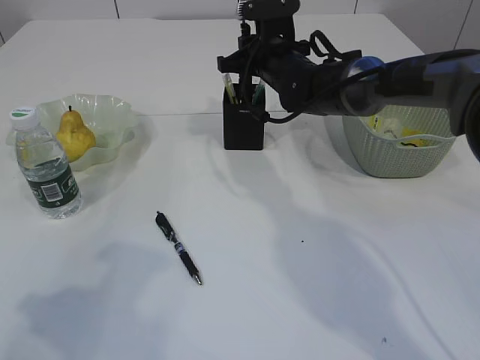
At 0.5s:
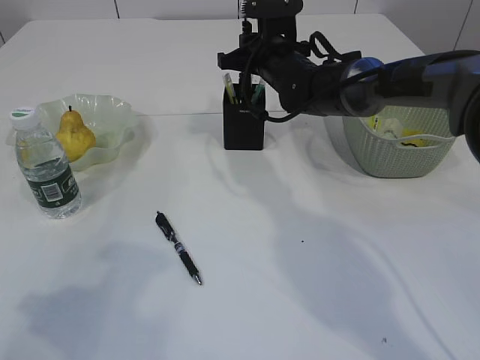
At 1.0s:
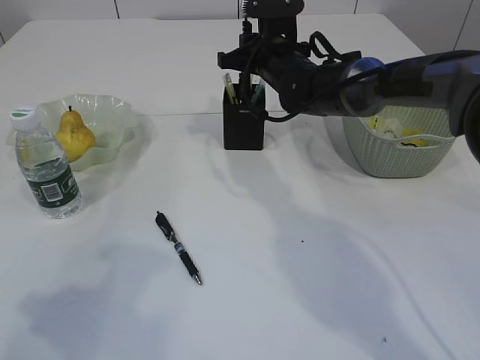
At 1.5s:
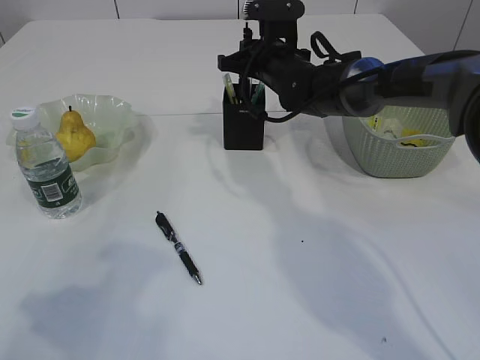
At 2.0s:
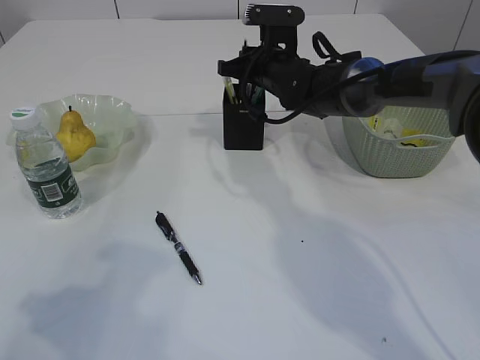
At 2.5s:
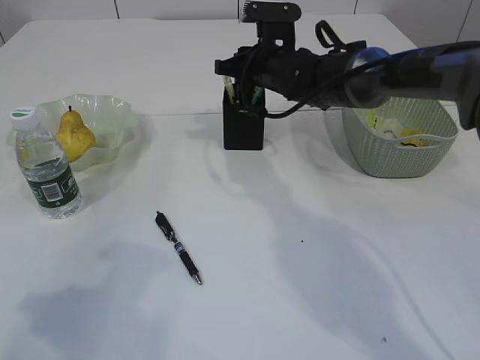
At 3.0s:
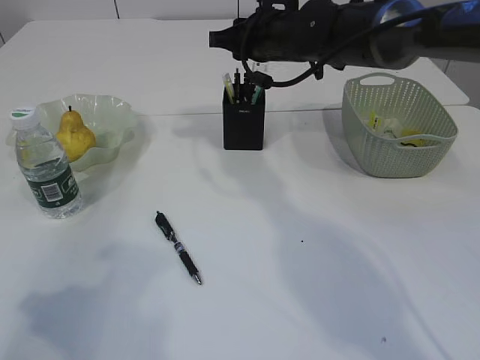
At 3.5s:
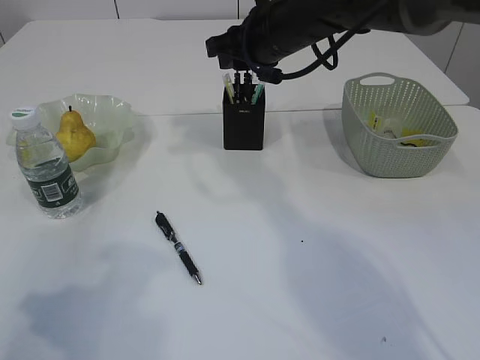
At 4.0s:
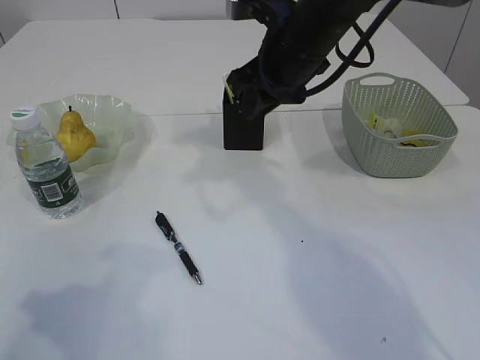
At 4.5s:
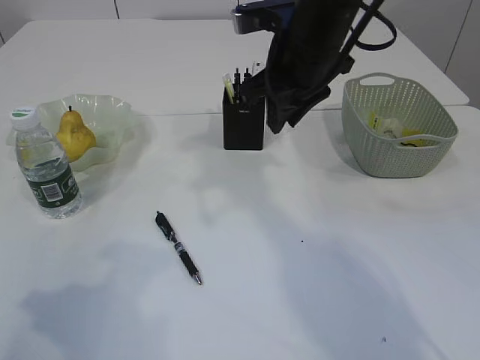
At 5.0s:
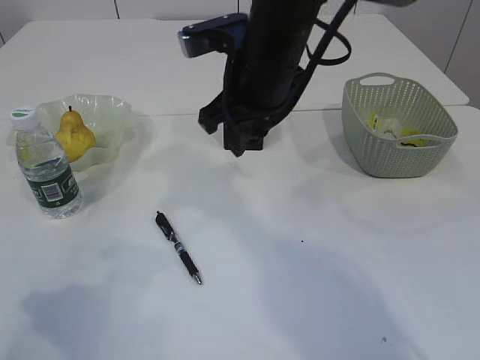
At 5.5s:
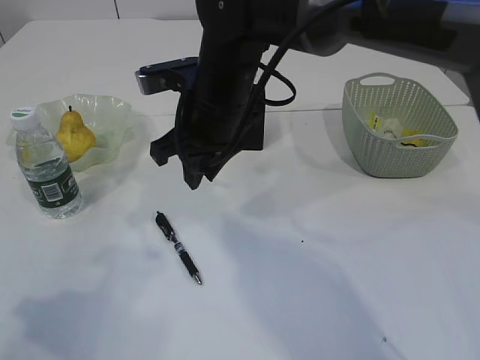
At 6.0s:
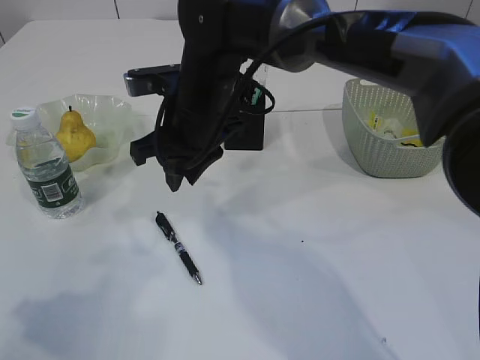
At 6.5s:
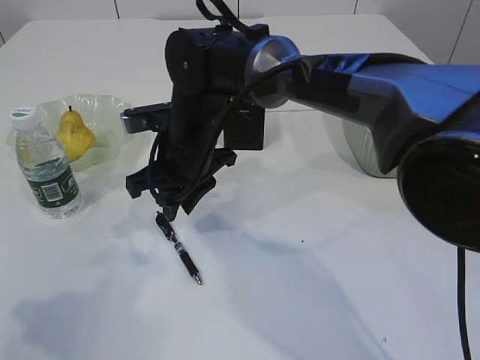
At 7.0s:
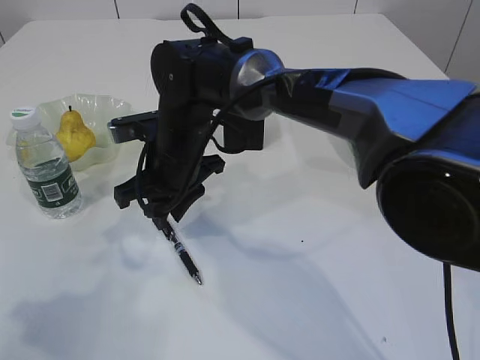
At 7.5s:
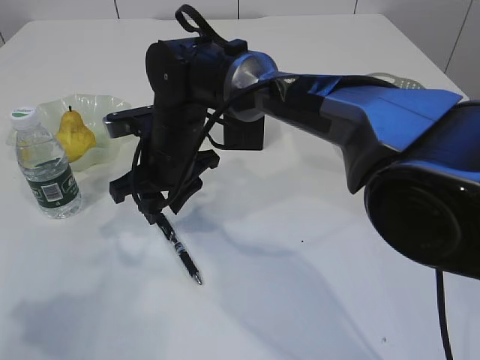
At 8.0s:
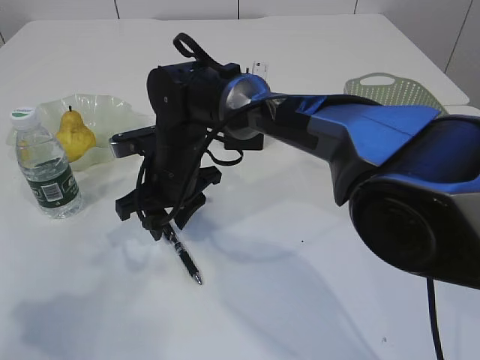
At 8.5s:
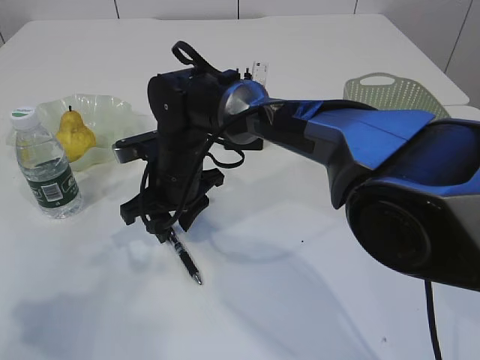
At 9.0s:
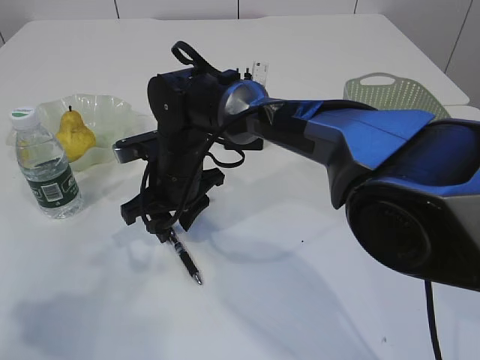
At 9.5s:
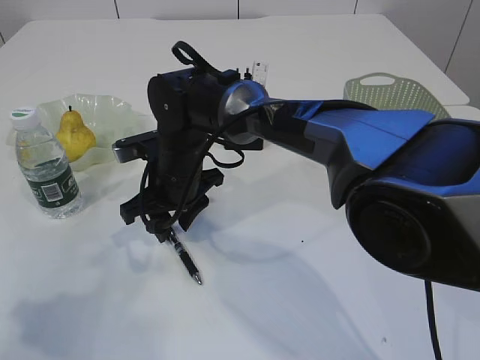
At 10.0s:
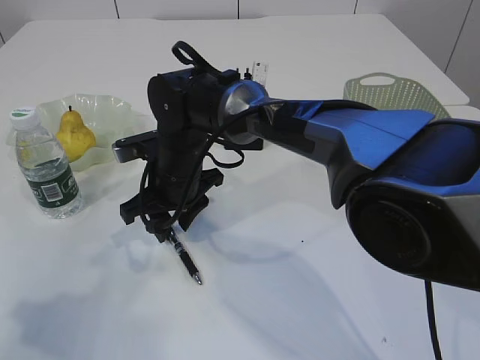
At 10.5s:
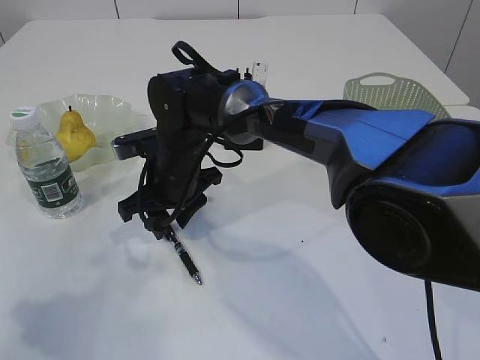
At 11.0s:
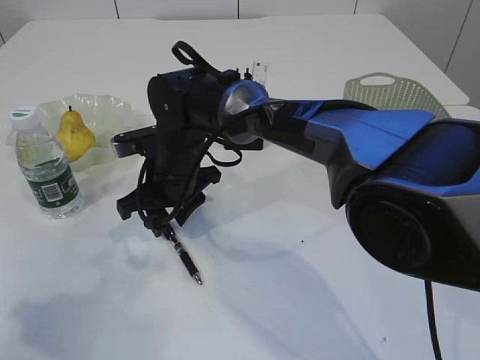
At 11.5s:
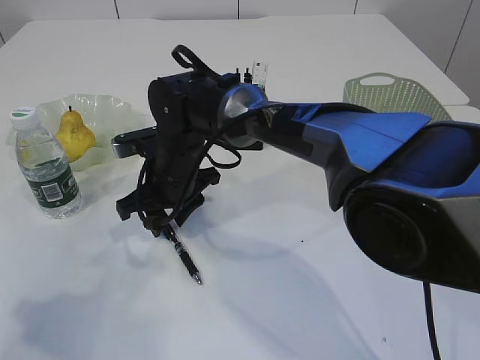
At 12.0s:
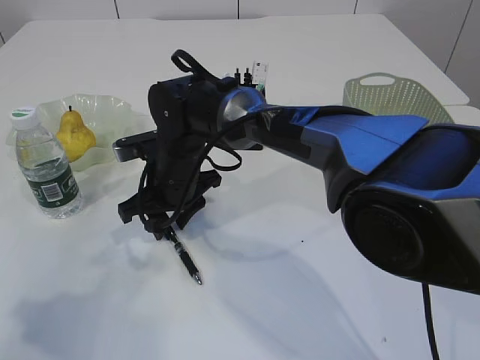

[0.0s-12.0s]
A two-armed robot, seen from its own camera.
Step, 0.0s to 2.0s: Place the pen into the pen holder.
0.0s to 2.0s: The grippers make only small movements.
2.0s to 4.0s: The right gripper shifts roughly 15 cm backward and upward.
4.0s to 6.0s: The right gripper travels to the left and downward by roughly 10 cm.
6.0s to 8.0s: The right gripper moves downward, roughly 10 cm.
8.0s to 10.0s: Neither gripper changes place.
10.0s to 12.0s: Both grippers stay about where they are.

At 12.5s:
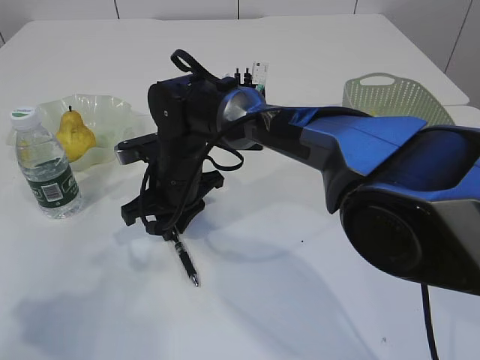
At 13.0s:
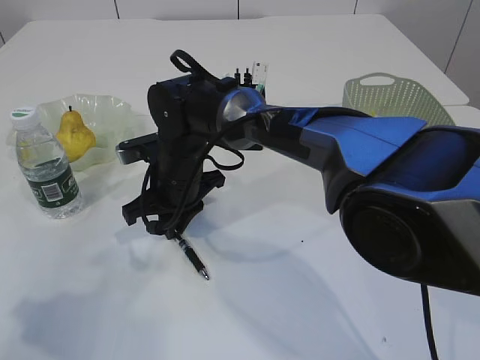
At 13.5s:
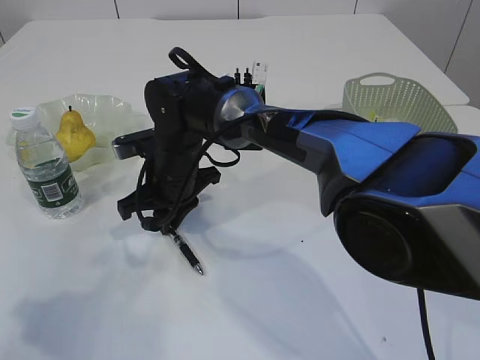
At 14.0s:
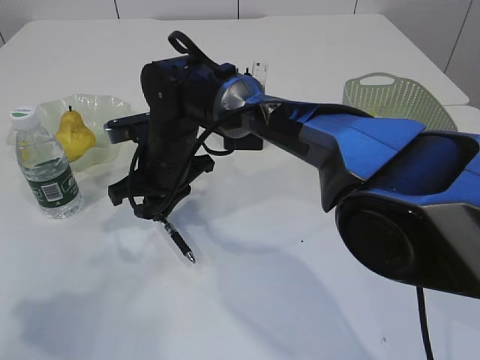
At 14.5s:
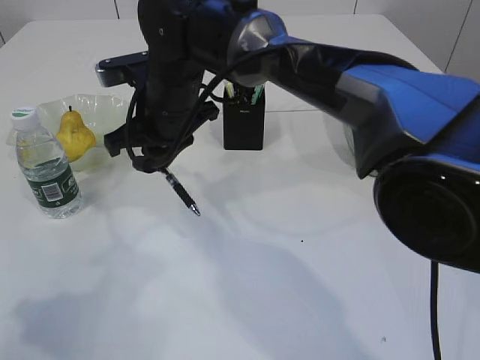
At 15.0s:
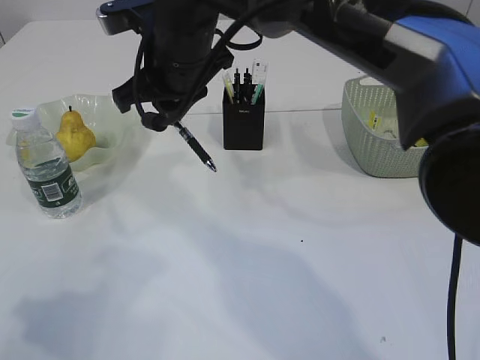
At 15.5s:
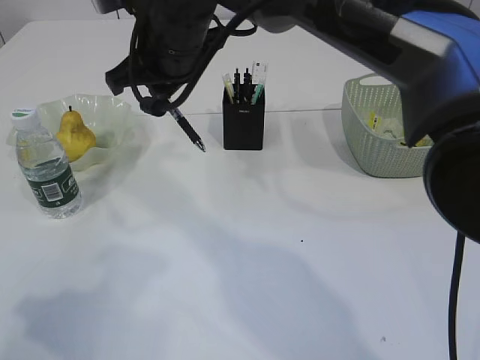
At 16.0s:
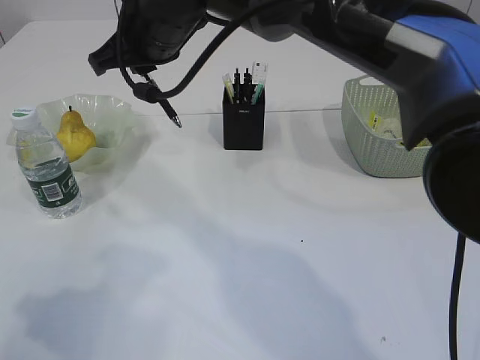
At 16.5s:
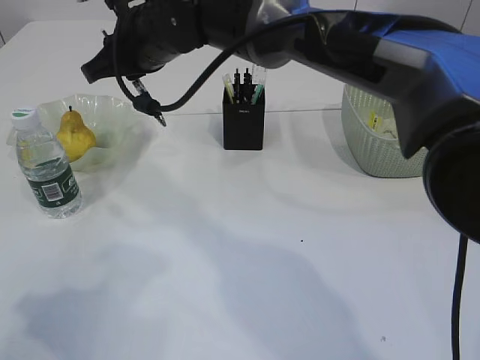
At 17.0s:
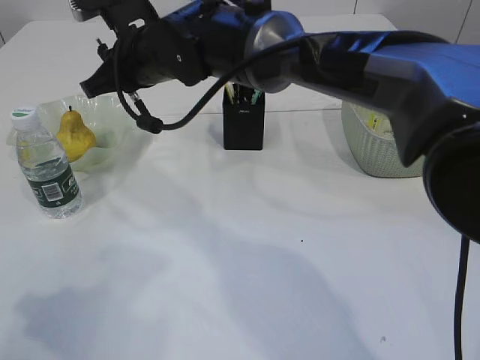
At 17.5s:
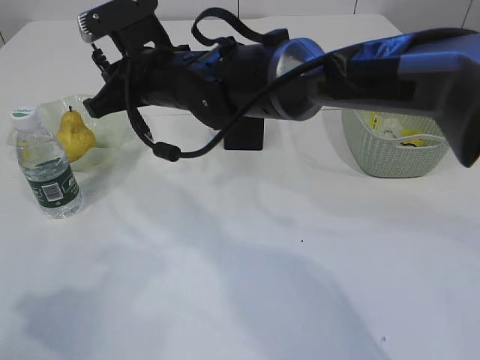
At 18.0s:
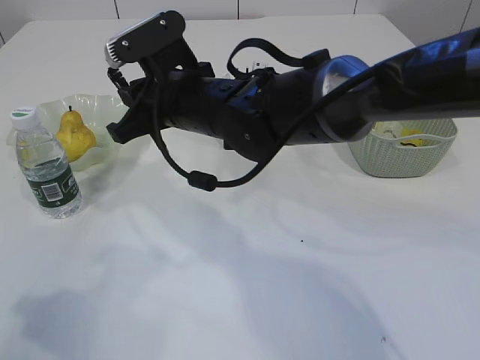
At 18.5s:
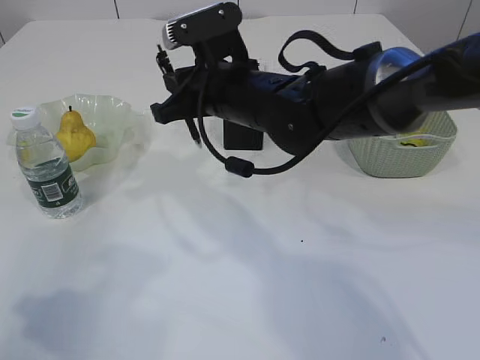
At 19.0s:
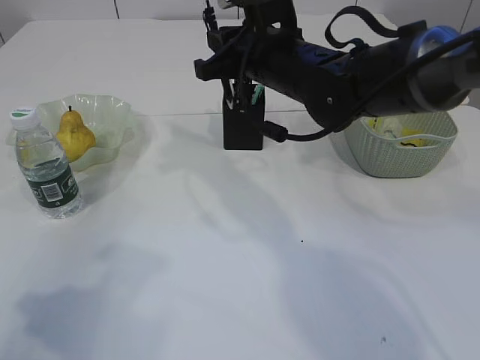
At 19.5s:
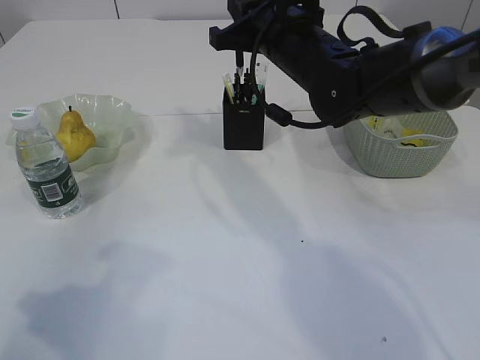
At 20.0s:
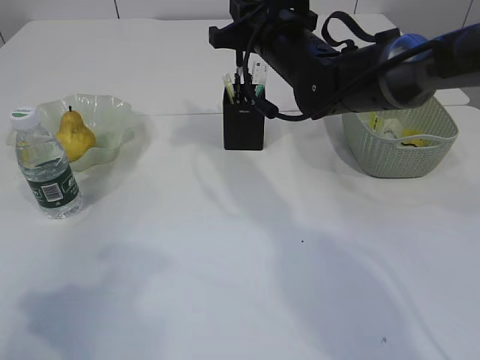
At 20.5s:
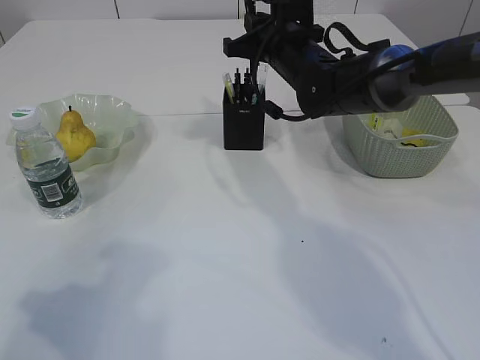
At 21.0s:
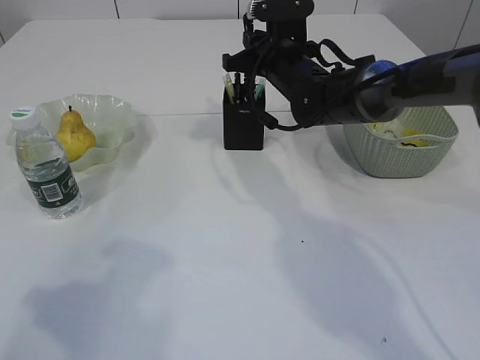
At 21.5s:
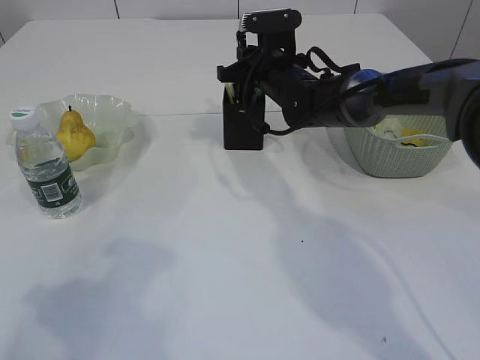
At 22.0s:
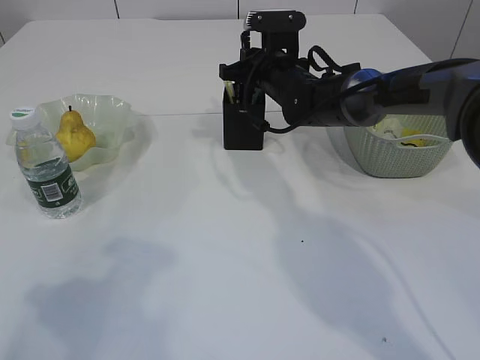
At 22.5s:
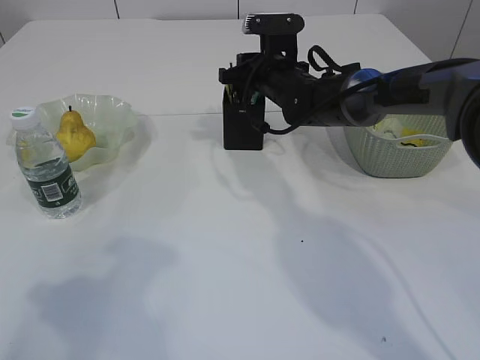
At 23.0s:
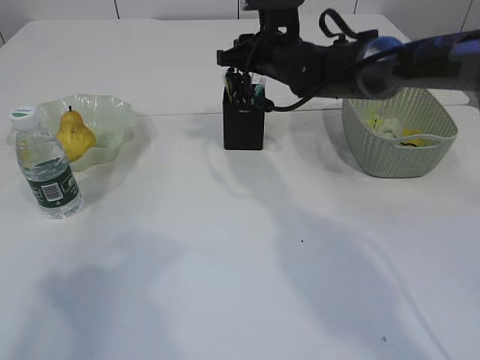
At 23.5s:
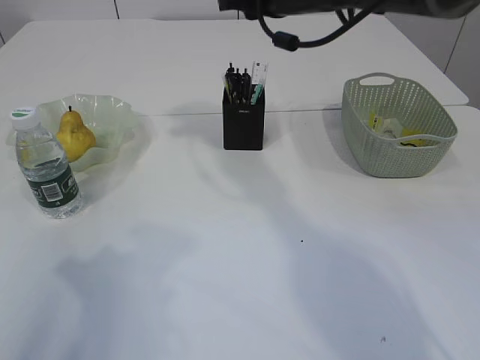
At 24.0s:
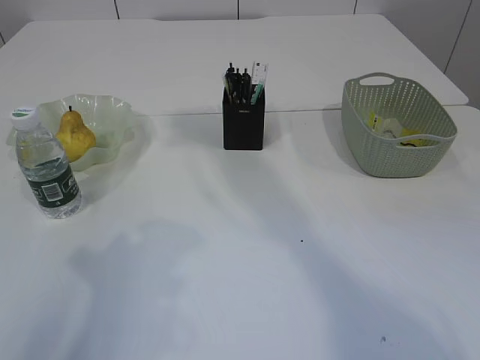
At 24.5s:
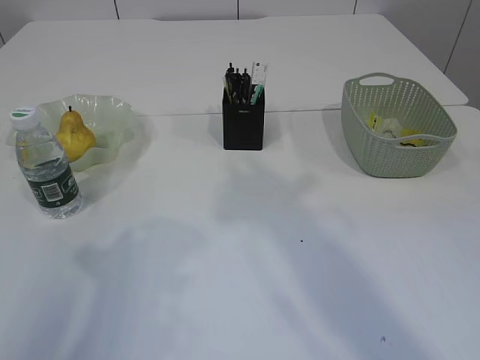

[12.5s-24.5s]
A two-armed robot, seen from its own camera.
Step, 14.0s to 22.5s: Place the pen into the pen holder.
12.5s to 14.5s: The right gripper goes roughly 10 cm upward.
14.5s to 16.5s: The right gripper is displaced upward by roughly 5 cm.
16.5s to 18.5s: The right gripper travels to the right and downward by roughly 10 cm.
18.5s to 20.5s: The right gripper goes roughly 15 cm forward and to the right.
20.5s to 22.5s: The right gripper shifts by roughly 5 cm, and opens.
22.5s to 24.5s: The right gripper goes about 35 cm backward and upward.

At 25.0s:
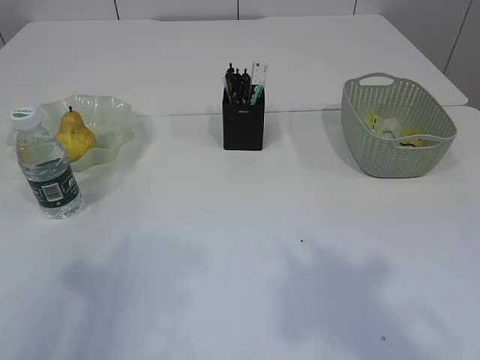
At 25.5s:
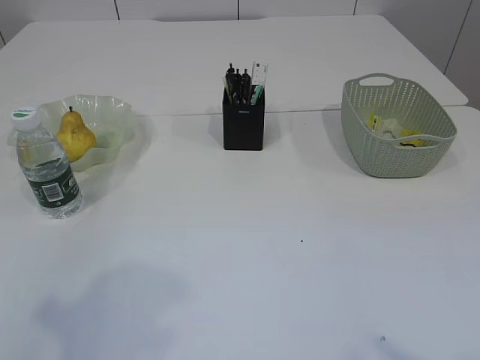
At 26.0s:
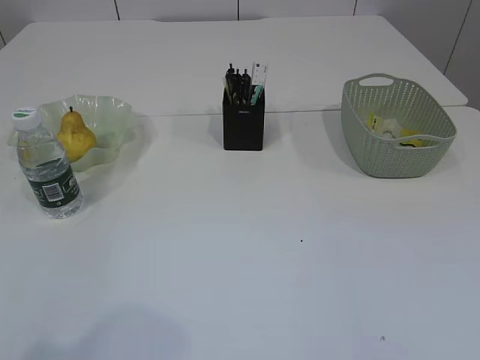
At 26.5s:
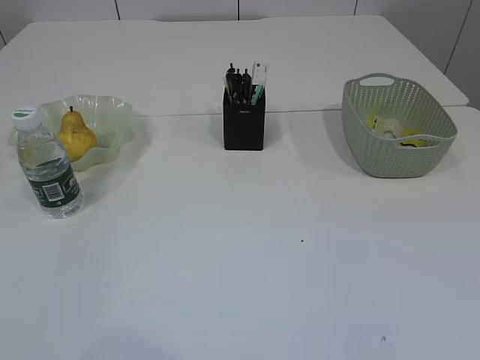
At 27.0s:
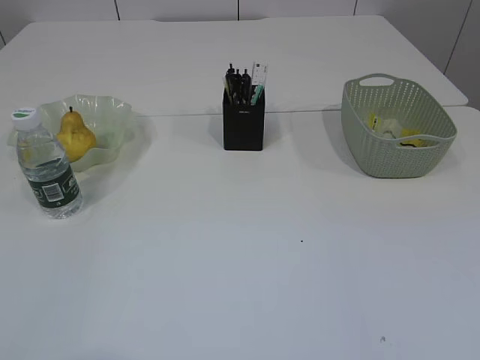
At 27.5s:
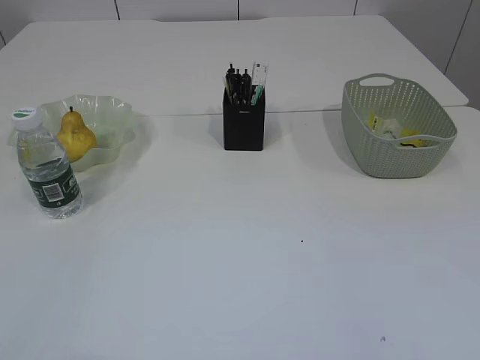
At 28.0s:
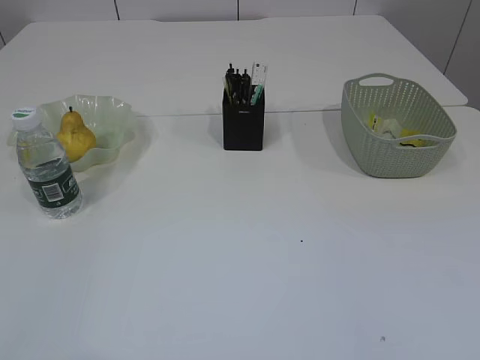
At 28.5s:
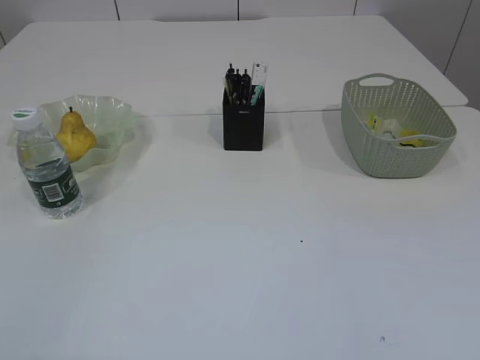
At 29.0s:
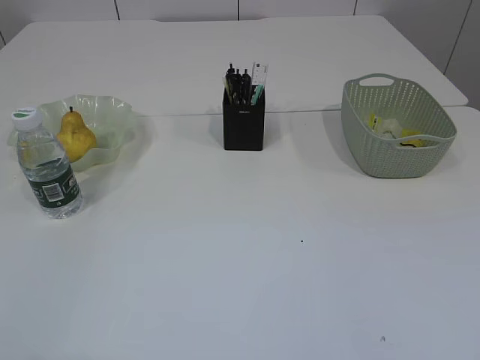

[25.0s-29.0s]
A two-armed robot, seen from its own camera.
25.0s to 27.0s: The left gripper goes roughly 15 cm backward.
